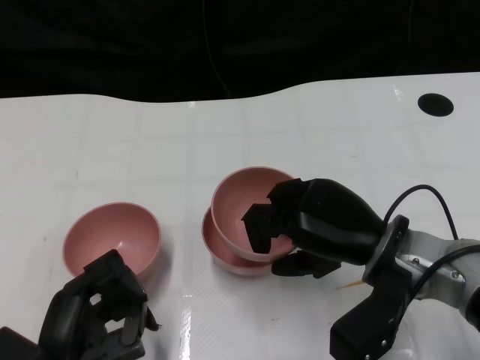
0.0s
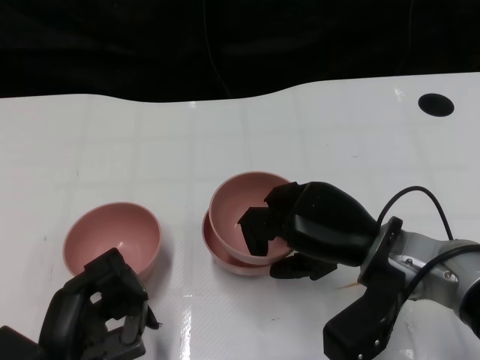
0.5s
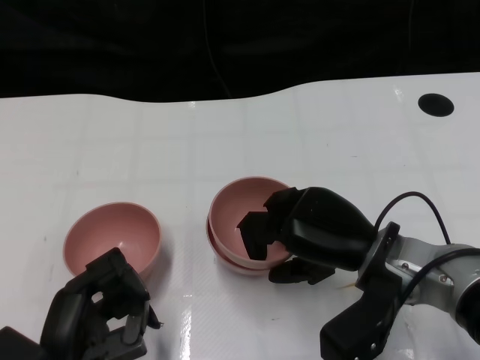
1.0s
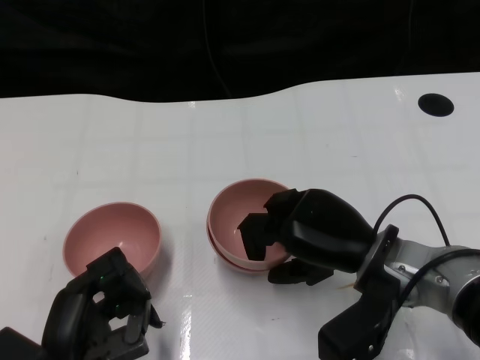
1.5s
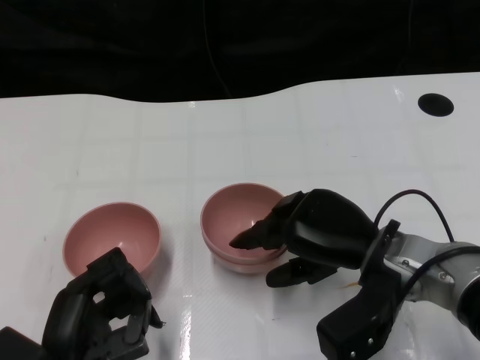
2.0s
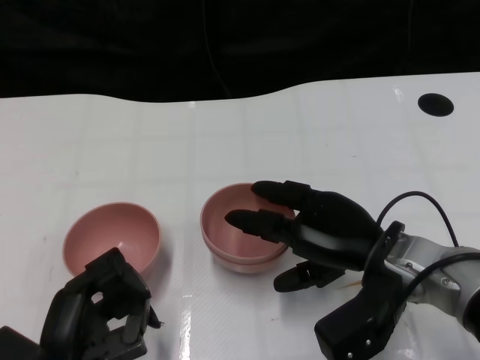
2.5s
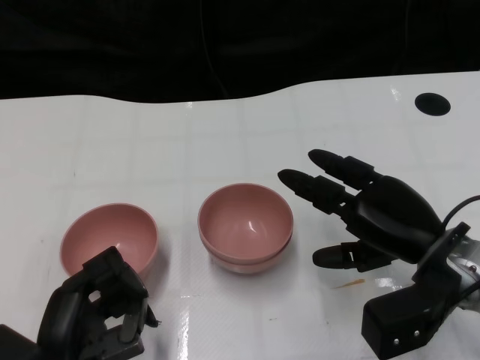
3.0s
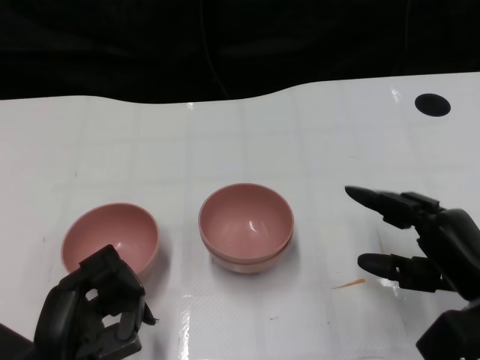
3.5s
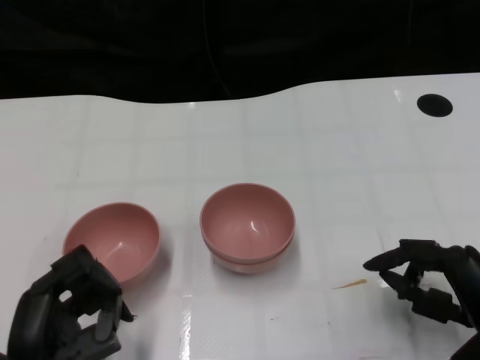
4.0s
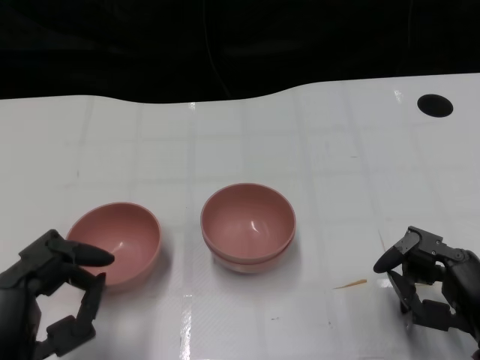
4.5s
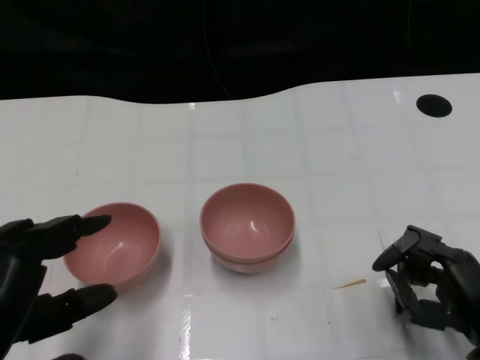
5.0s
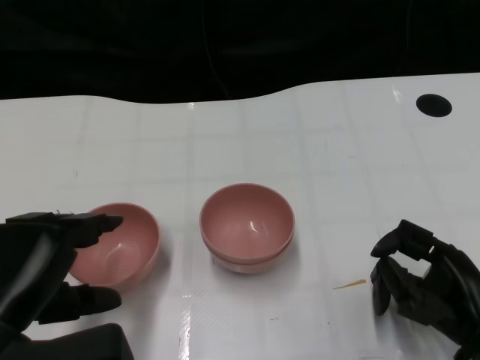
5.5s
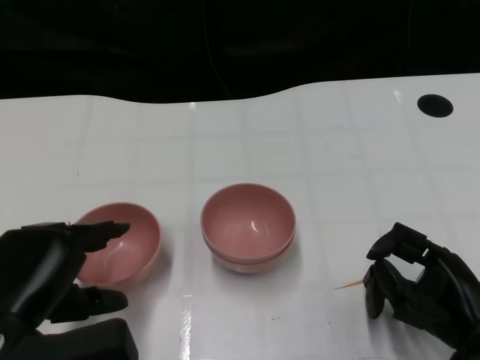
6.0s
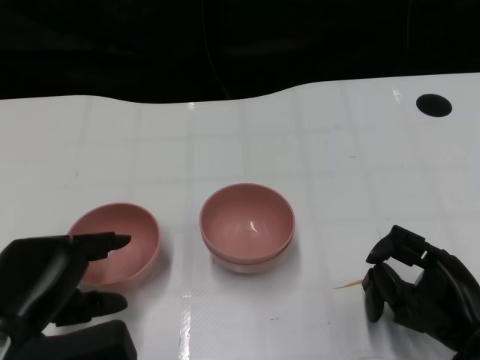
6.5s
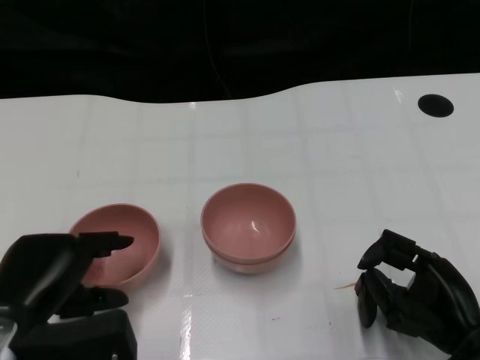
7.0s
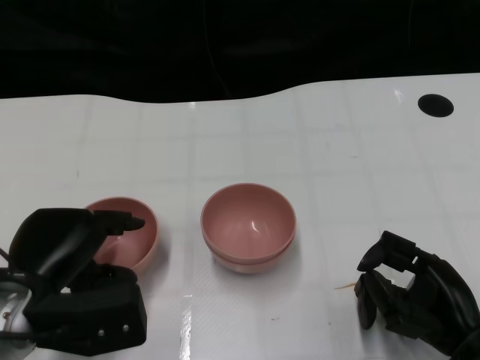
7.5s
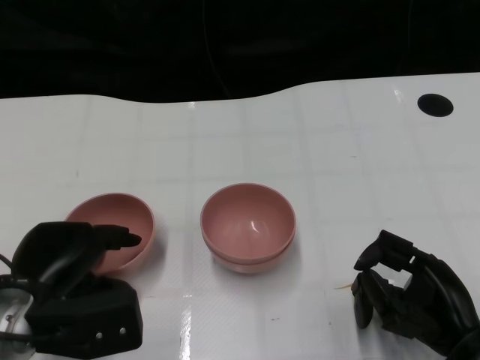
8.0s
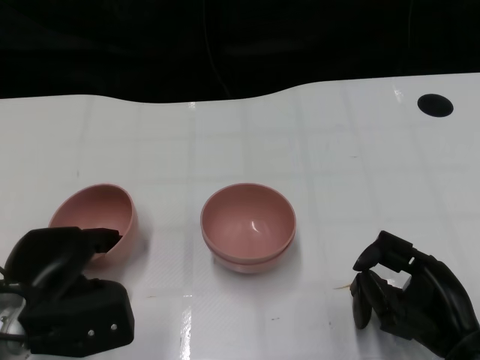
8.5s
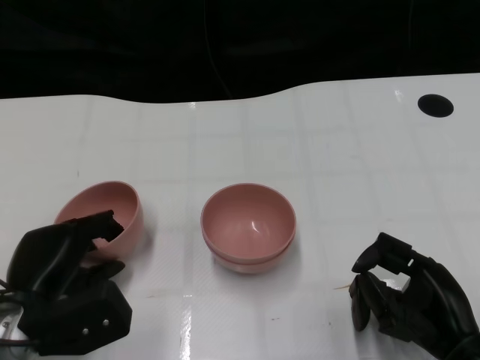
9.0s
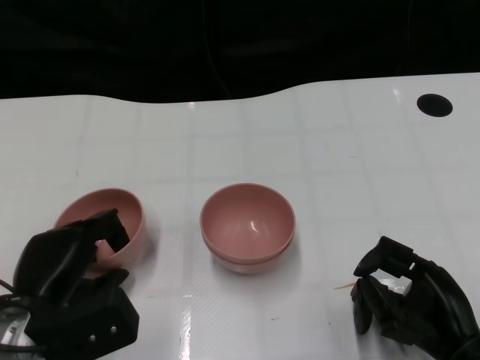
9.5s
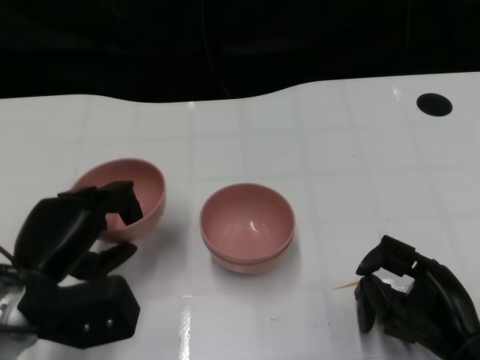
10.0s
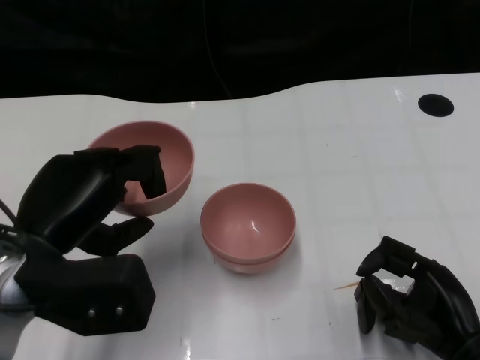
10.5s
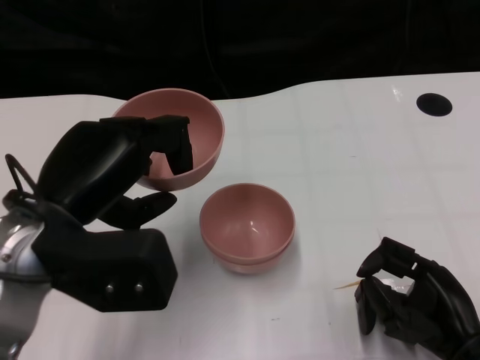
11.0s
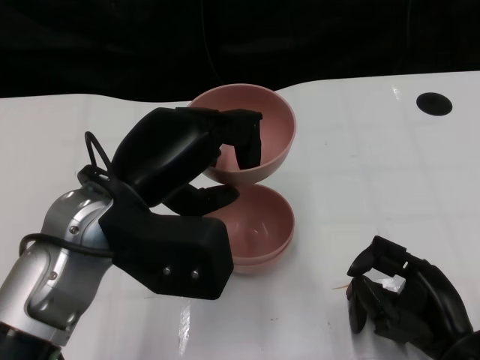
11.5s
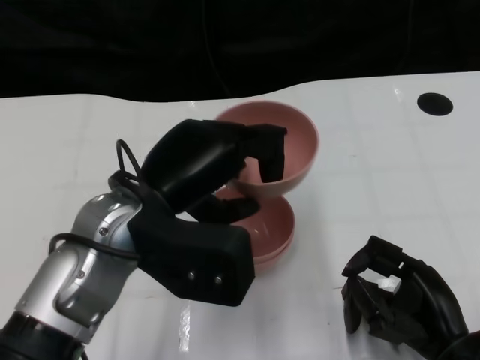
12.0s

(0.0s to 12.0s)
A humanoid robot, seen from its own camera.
Task of the whole recording: Pick up the bowl on one side of the table and place it on top of the middle bowl, then pick up the bowl on the other side of the table and place it on top of the middle bowls.
Step, 0.0s - 3.0s: Place the bowl on the right onto the bowl in the middle with right gripper.
Step, 3.5s - 9.5s: Grasp the bowl on the left with the left gripper.
0.0s - 2.0s: The hands stay close to where they were, moving slightly.
2.0s - 4.0s: The right hand is displaced to the right, backward and downward by some 15 cm.
4.0s - 6.0s: The left hand moves upward, about 5 cm.
6.0s - 8.0s: The left hand heads forward, covering about 5 cm.
8.0s - 10.0s: The hands make only small movements.
10.0s - 12.0s: The left hand is displaced upward and to the right by about 15 cm.

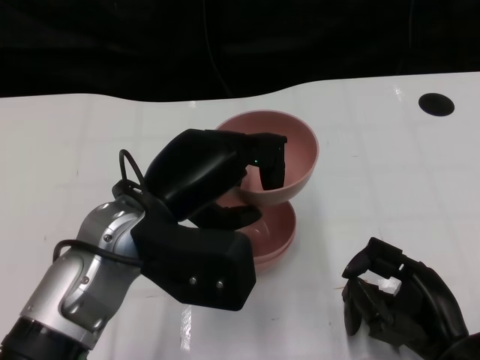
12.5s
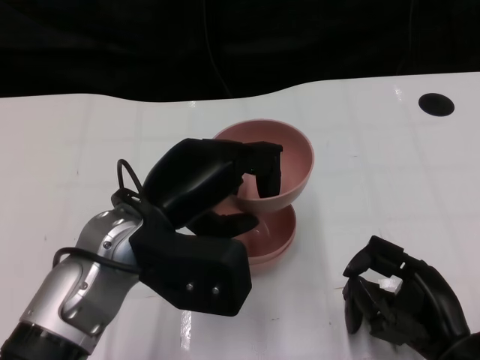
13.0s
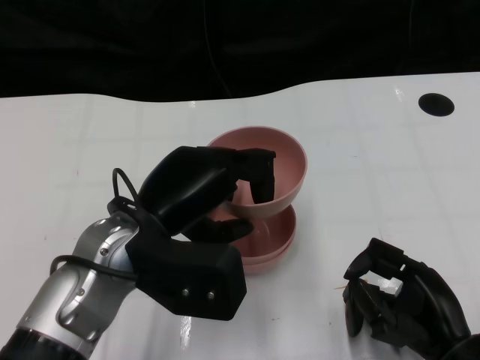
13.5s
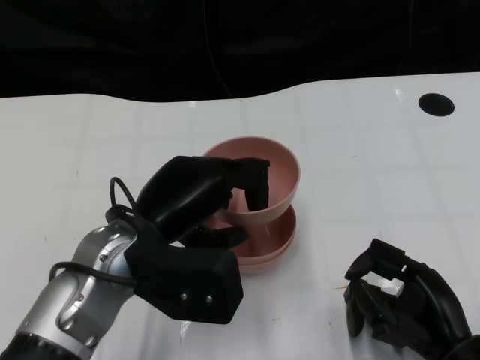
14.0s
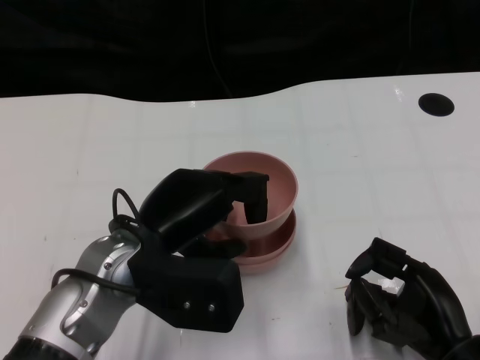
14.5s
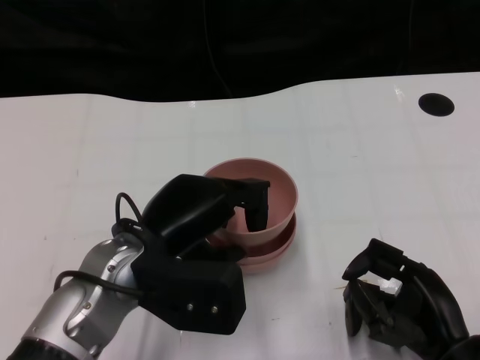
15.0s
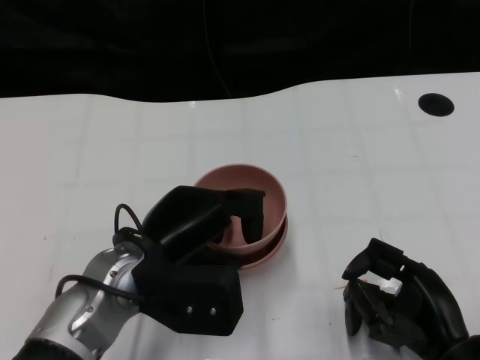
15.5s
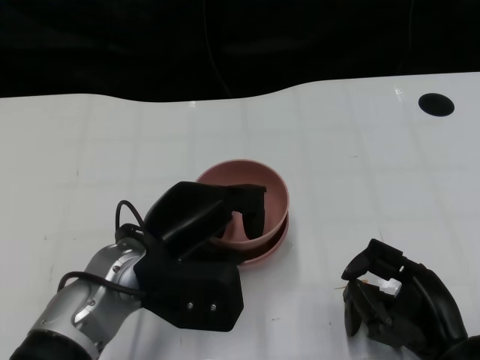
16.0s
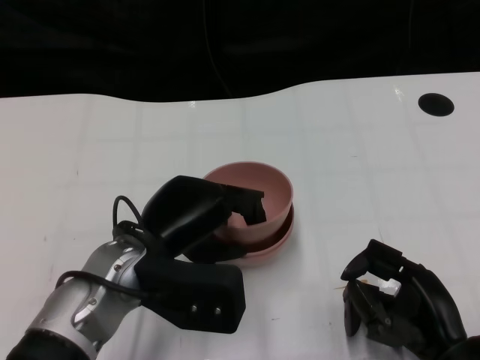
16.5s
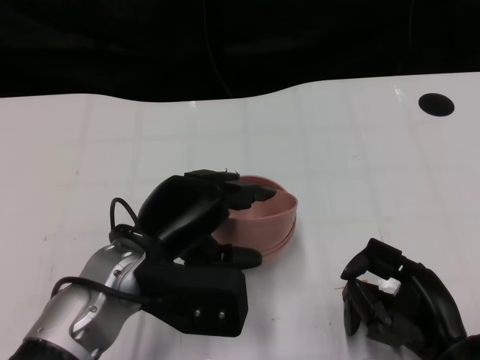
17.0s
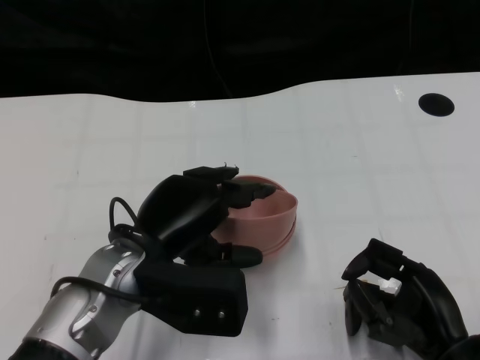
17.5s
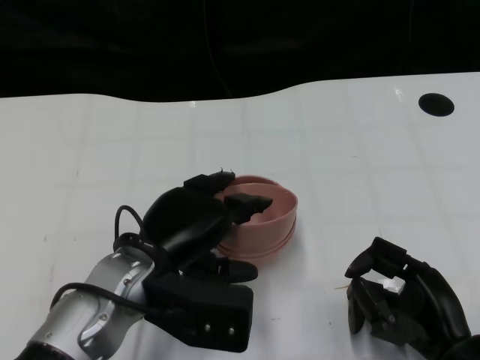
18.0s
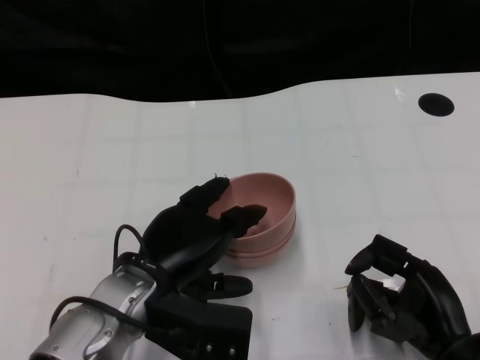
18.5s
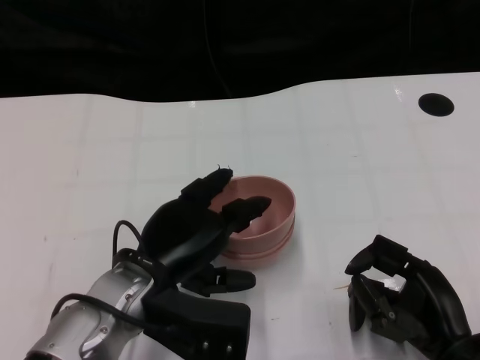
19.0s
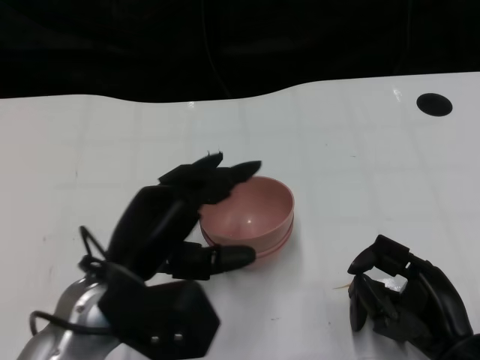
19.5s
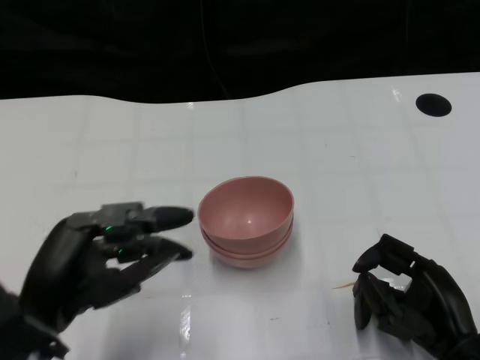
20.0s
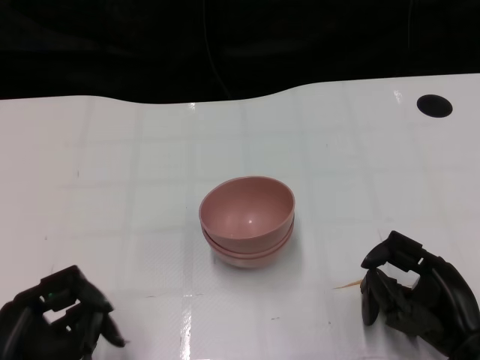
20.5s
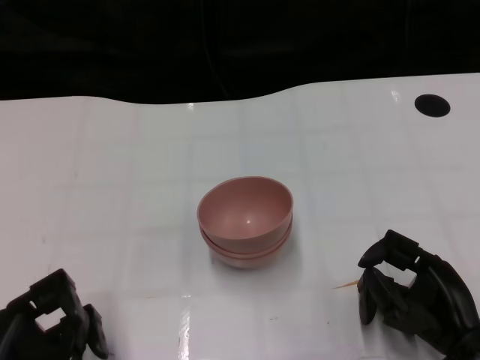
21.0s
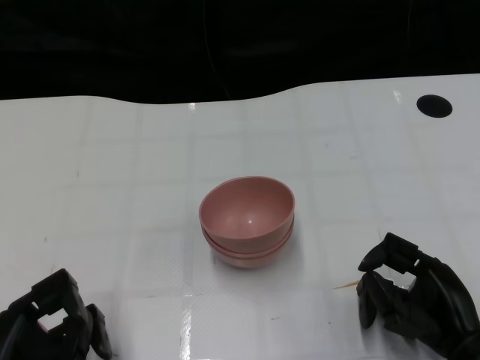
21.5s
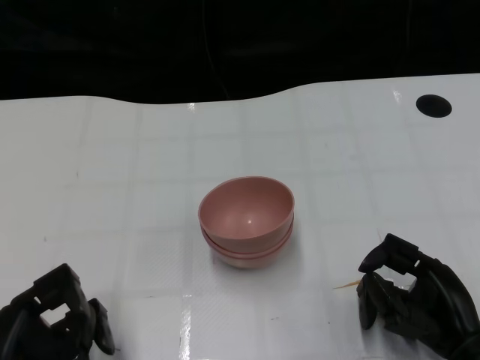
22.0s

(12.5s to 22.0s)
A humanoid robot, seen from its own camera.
Task of the whole recording: Pick up the bowl on one side of the table and place it on top of the middle bowl, then pick up the bowl on the other side of the table and place it on top of the middle bowls.
Step, 12.5s - 19.5s: Place the bowl on the left onto the bowl in the middle with left gripper.
12.5s - 14.5s: The hands stay close to where they were, moving slightly.
14.5s - 18.0s: The hands move only a little.
18.0s - 20.0s: The left hand is displaced to the left and backward by about 10 cm.
20.0s - 22.0s: The left hand heads downward, covering about 10 cm.

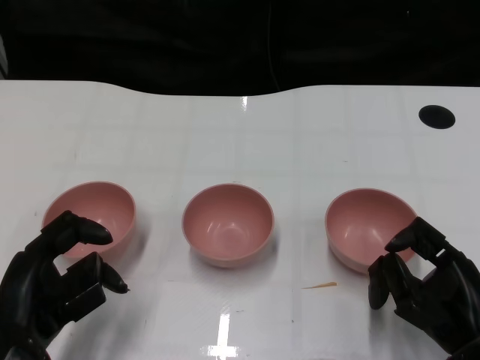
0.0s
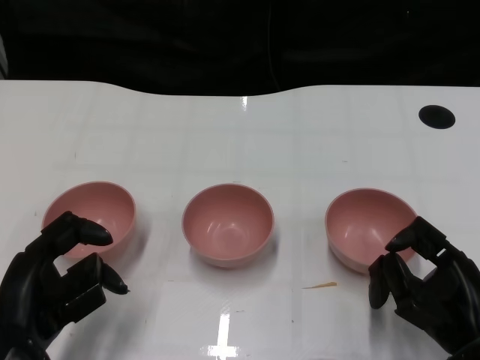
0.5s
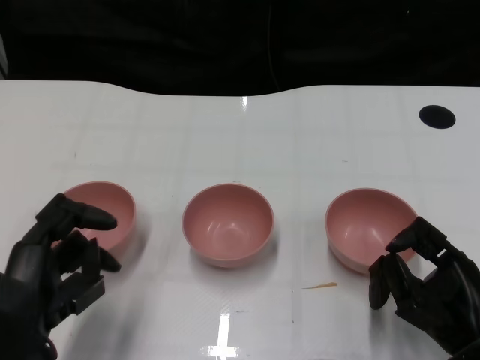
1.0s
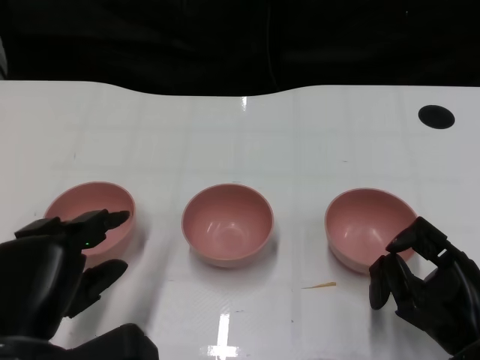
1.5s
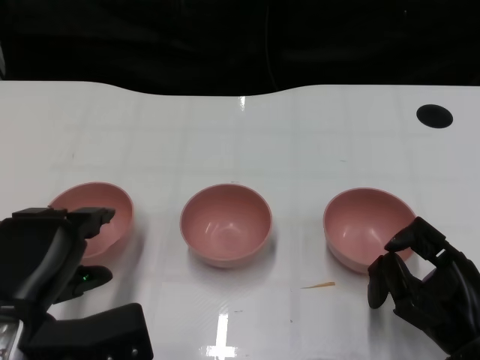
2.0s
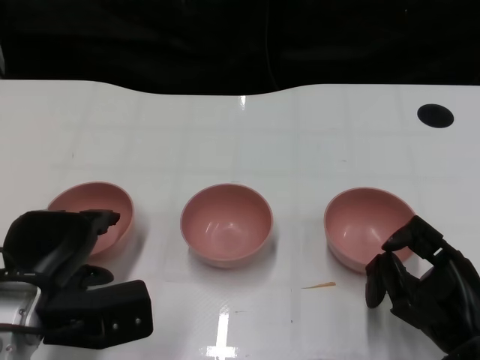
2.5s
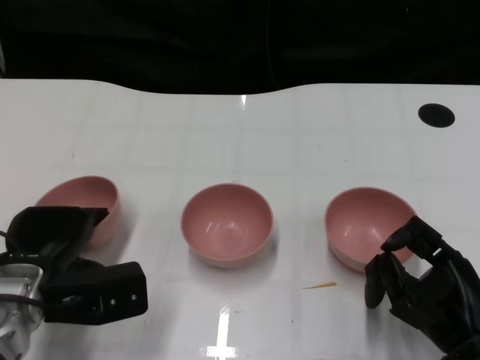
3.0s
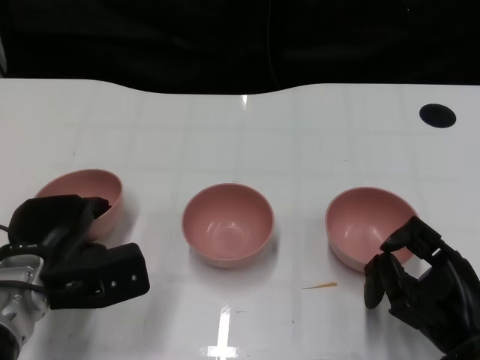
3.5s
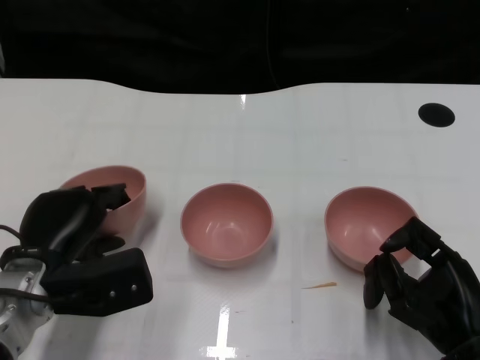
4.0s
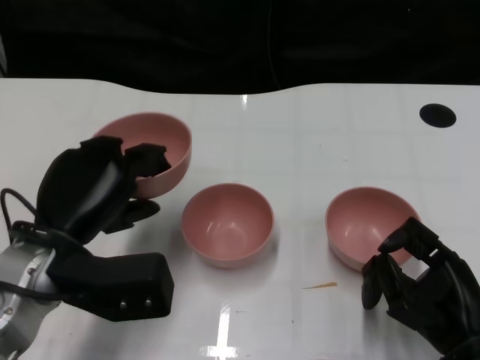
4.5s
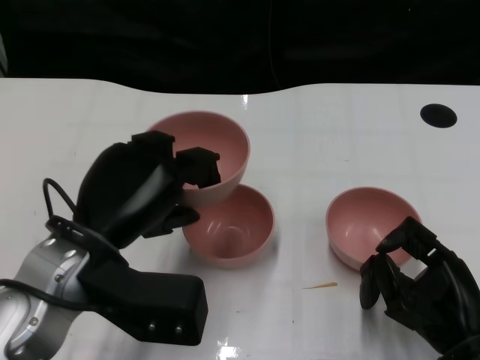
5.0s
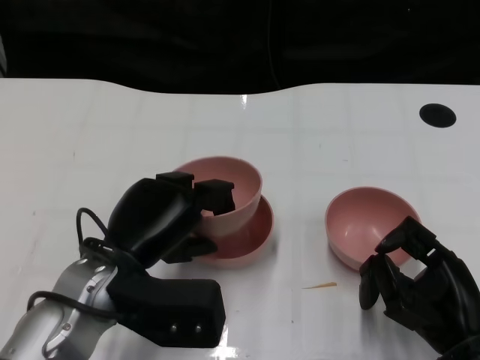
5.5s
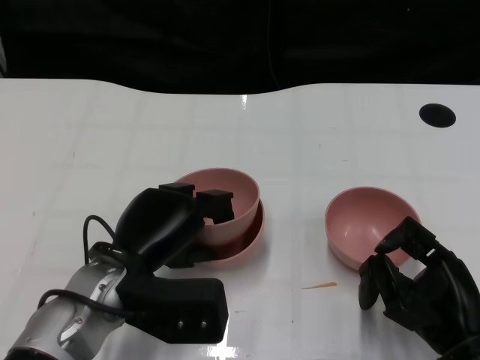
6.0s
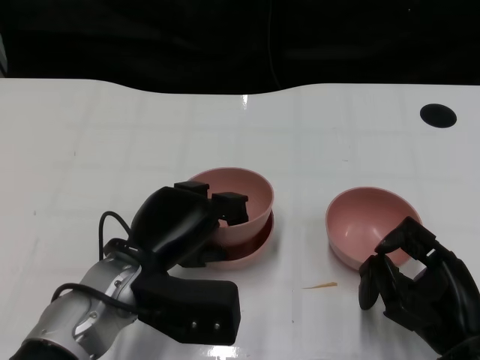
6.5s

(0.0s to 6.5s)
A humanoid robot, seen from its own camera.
Task of the whole recording: Pick up the bowl on one side of the table and place it on top of the middle bowl, then pick up the bowl on the other side of the table and place it on top of the middle bowls.
Step, 1.0s - 3.5s: Grasp the bowl on the left with the left gripper.
2.0s - 4.5s: The left hand shifts about 5 cm forward.
4.5s - 6.5s: The left hand heads to the right, covering about 5 cm.
